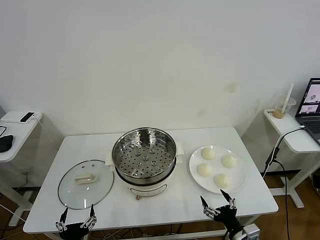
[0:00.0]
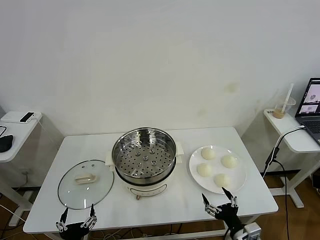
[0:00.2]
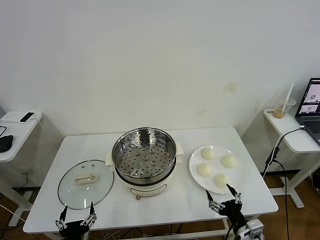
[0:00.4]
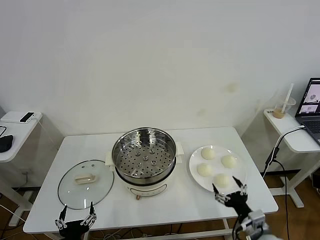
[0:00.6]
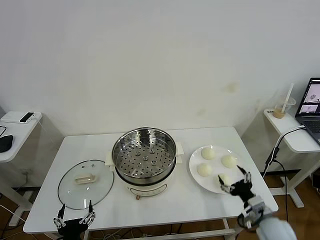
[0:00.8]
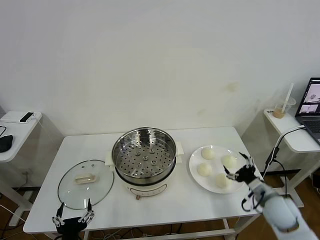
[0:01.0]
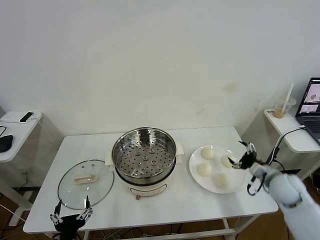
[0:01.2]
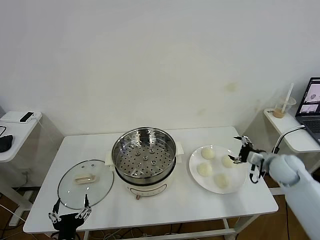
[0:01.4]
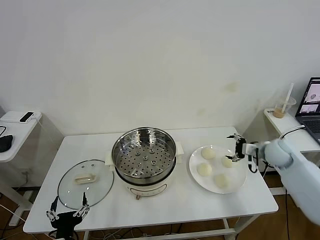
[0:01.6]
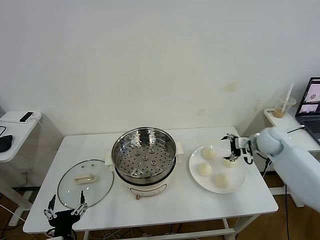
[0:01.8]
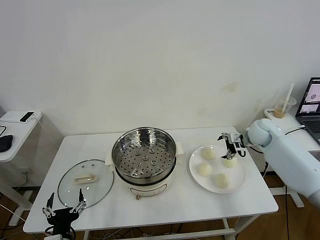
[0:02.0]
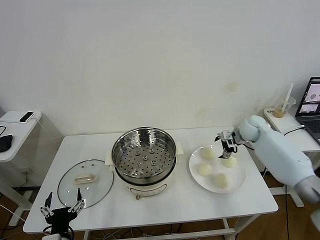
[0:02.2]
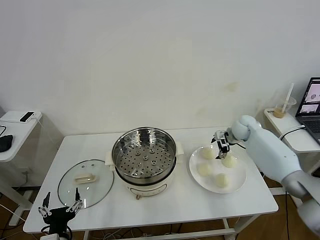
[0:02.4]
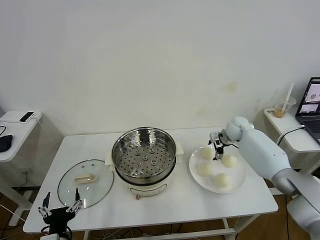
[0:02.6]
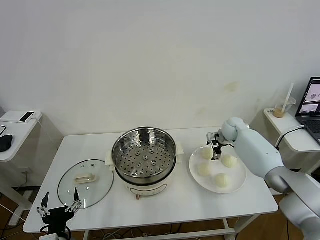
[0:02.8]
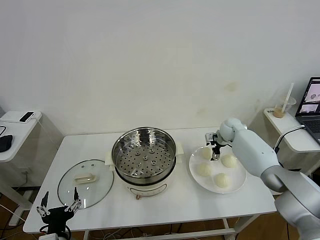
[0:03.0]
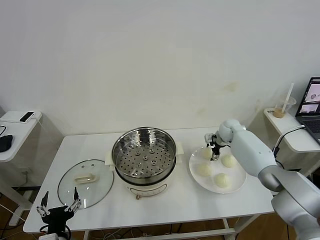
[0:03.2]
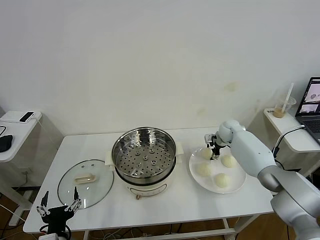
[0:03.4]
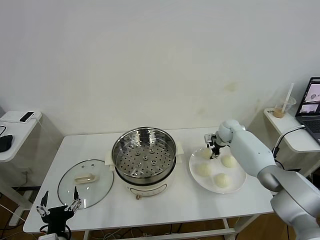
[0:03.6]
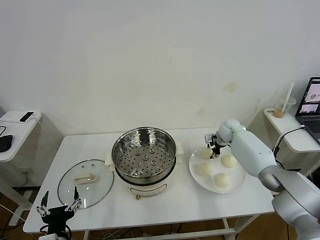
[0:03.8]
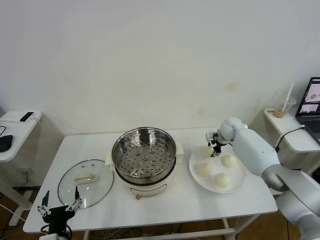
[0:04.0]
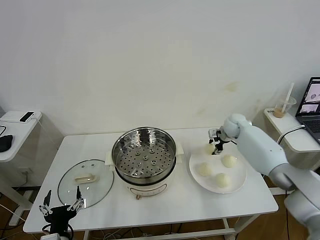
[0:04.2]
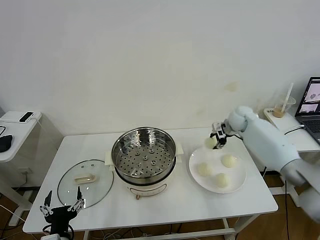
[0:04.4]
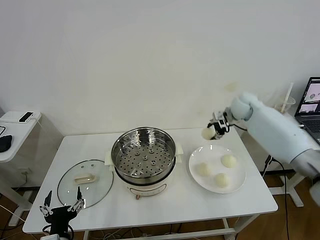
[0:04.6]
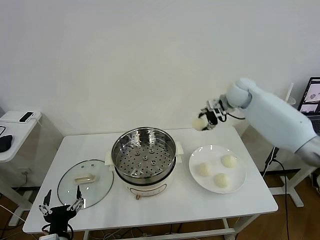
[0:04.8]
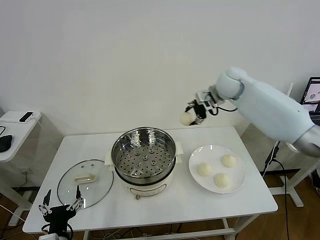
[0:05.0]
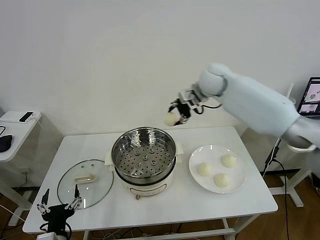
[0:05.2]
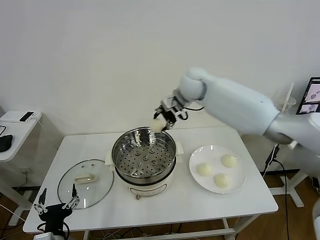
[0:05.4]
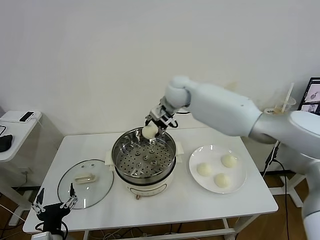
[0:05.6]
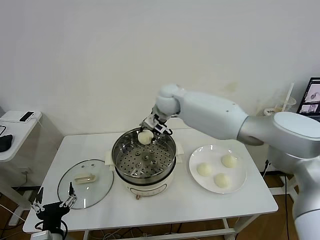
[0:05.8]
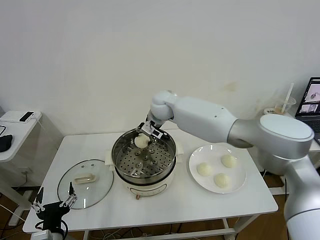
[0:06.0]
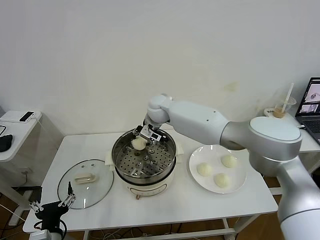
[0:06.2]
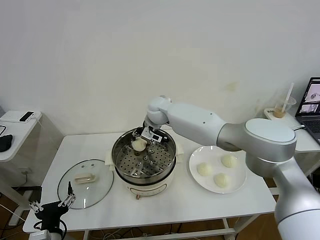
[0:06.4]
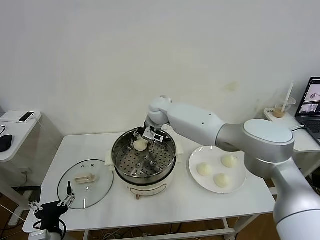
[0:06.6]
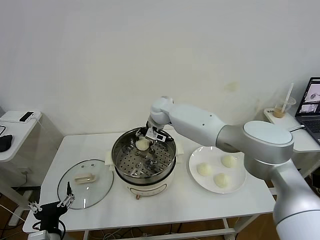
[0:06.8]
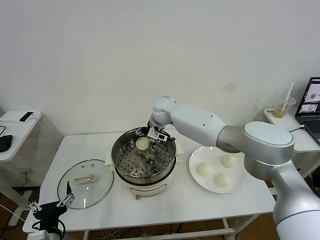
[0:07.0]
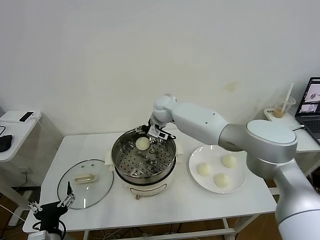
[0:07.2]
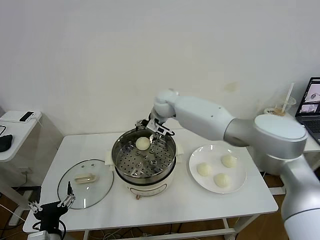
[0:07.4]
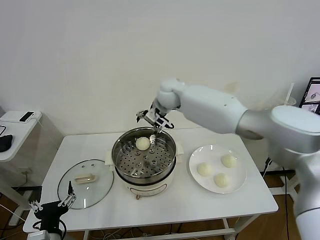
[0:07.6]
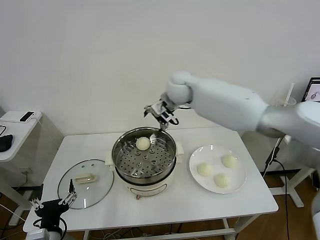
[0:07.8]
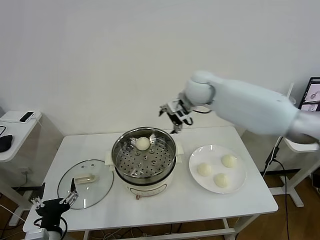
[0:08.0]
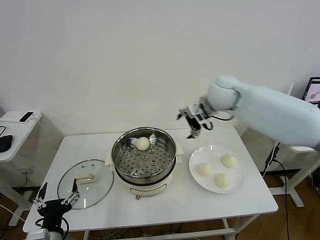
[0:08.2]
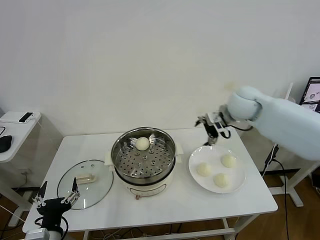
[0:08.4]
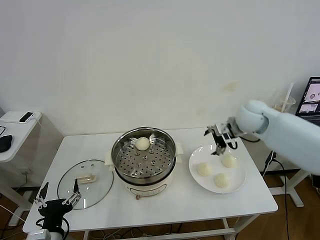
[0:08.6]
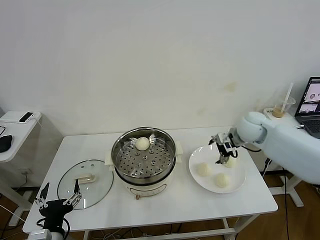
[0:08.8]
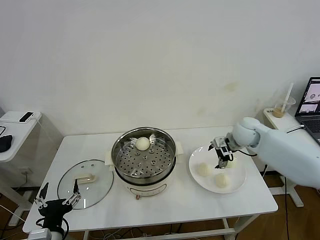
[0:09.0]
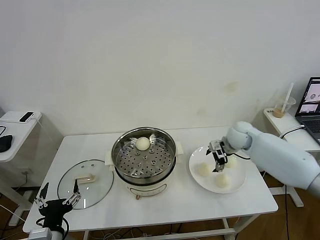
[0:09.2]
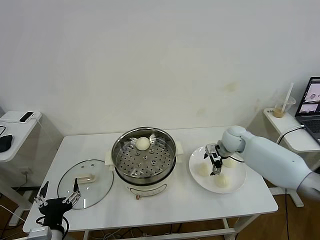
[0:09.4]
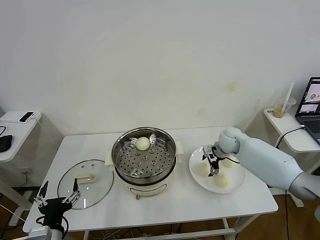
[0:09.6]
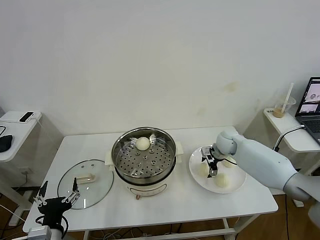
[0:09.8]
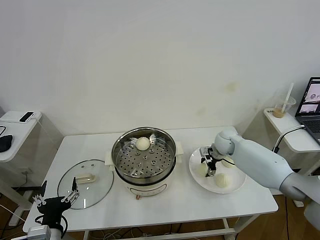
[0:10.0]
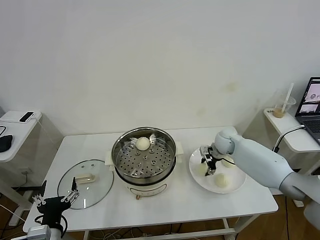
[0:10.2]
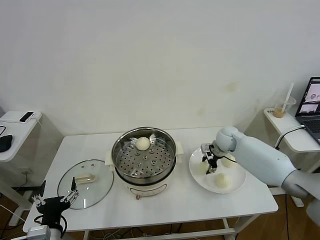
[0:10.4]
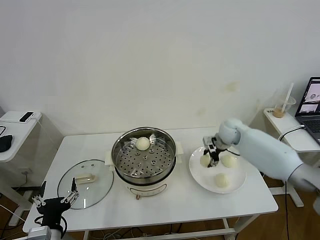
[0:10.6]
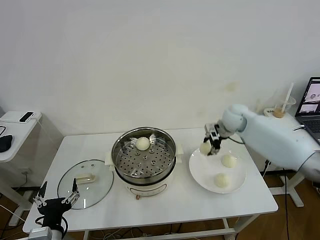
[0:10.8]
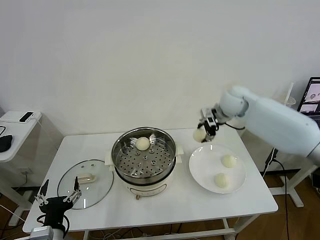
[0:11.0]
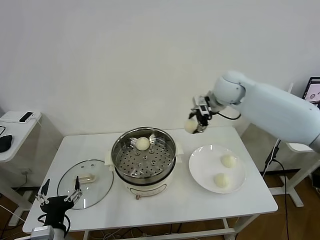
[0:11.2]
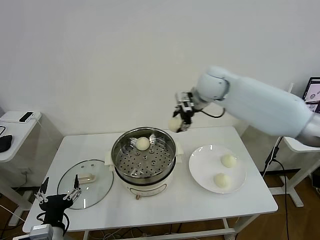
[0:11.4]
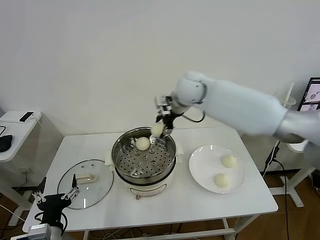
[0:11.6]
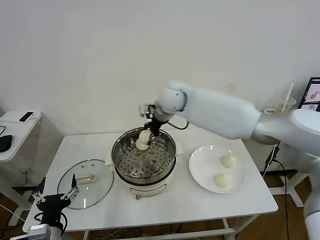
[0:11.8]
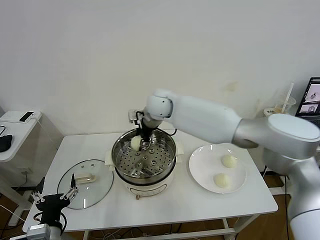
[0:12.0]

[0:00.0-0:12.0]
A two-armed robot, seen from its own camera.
Task of the whole recording: take steamed baozi put them in steamer then cover it.
Step, 0:00.0 to 0:03.8: Grasp the baozi in the plate with right gripper.
Step, 0:04.0 to 0:07.2: Place the baozi on the steamer with right gripper.
Step, 0:07.4 to 0:10.2: Grasp the baozi in the plate with right gripper.
0:01.6 to 0:03.0: The right gripper goes roughly 20 cm forward, to the left and downward.
0:03.0 to 0:04.4: The right gripper is displaced upward by some 10 cm, and closes.
0:04.4 to 0:06.0: The right gripper is displaced to the left by roughly 30 cm.
0:06.0 to 0:07.6: The right gripper heads upward and to the right, covering roughly 10 cm, and opens its fingers.
0:07.6 to 0:09.0: The right gripper travels to the right and downward by about 30 cm.
0:09.0 to 0:10.4: The right gripper shifts by some 5 cm, and closes up.
0:10.4 to 0:12.0: The right gripper is displaced to the left and upward by roughly 30 cm.

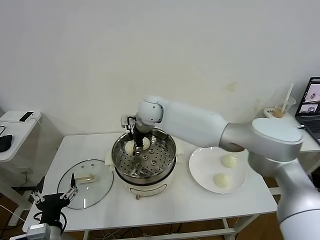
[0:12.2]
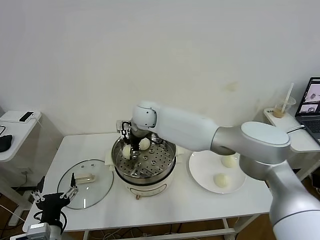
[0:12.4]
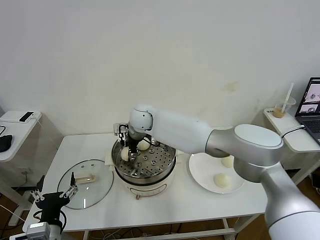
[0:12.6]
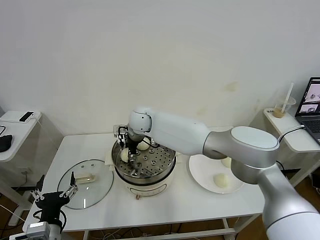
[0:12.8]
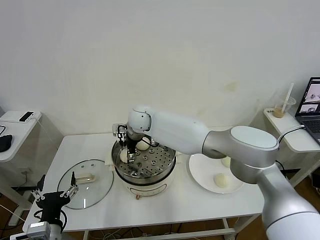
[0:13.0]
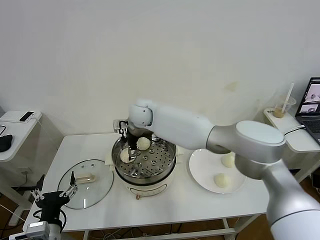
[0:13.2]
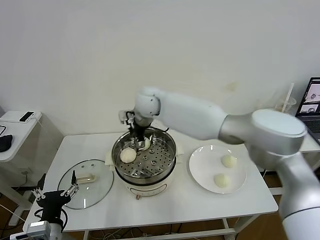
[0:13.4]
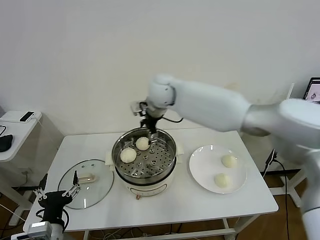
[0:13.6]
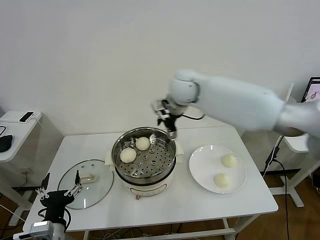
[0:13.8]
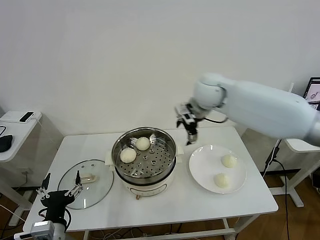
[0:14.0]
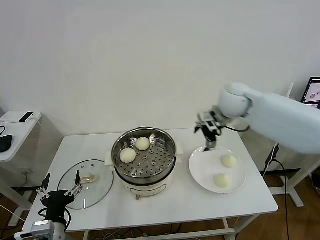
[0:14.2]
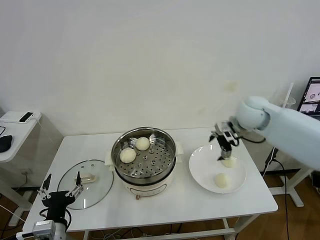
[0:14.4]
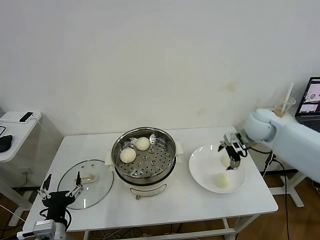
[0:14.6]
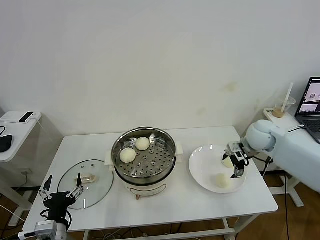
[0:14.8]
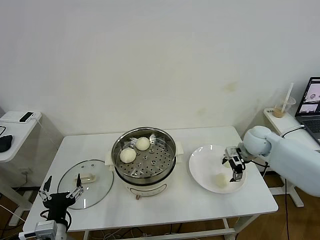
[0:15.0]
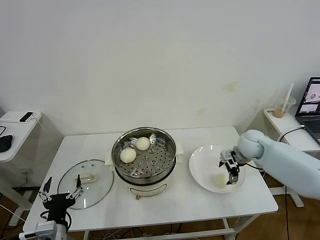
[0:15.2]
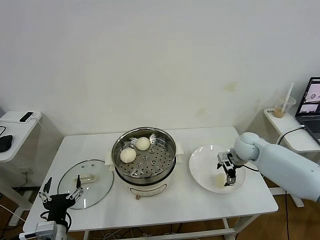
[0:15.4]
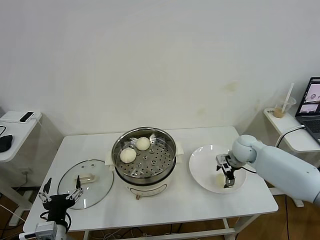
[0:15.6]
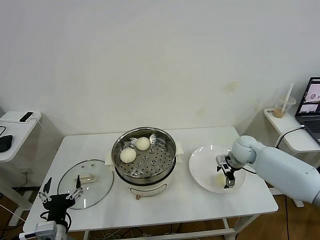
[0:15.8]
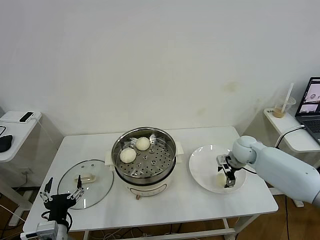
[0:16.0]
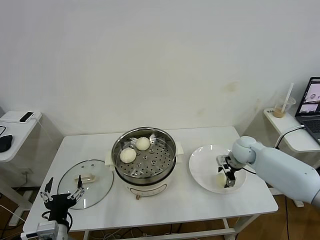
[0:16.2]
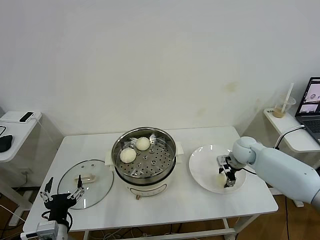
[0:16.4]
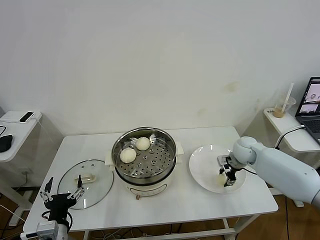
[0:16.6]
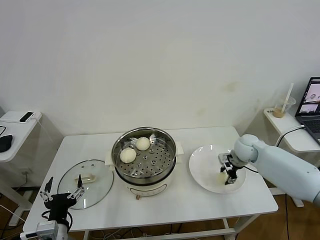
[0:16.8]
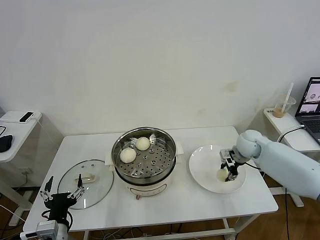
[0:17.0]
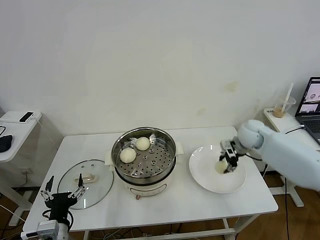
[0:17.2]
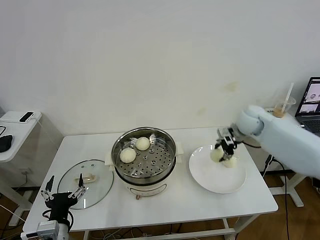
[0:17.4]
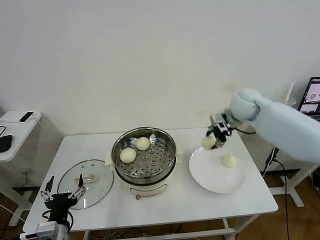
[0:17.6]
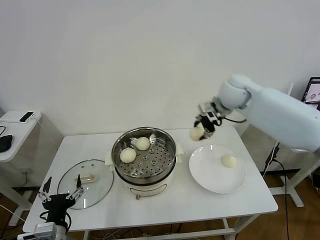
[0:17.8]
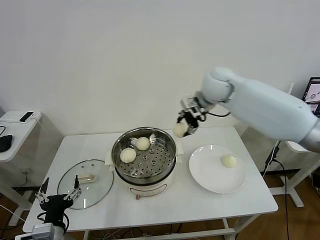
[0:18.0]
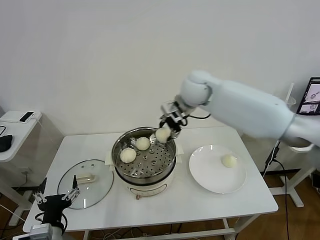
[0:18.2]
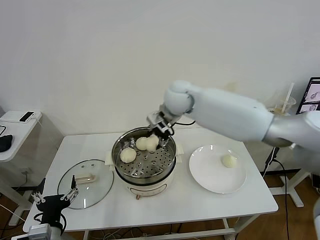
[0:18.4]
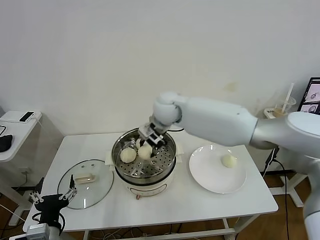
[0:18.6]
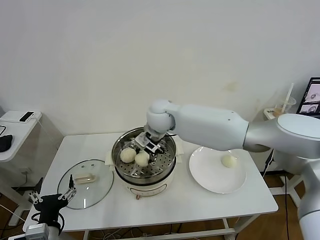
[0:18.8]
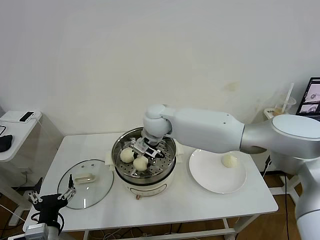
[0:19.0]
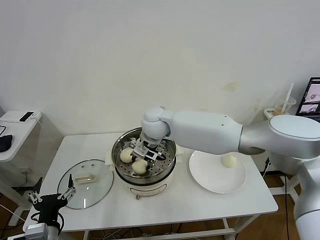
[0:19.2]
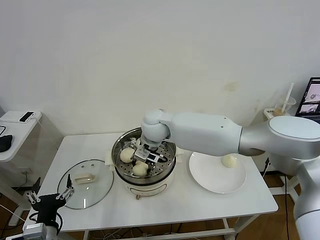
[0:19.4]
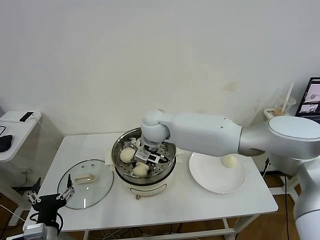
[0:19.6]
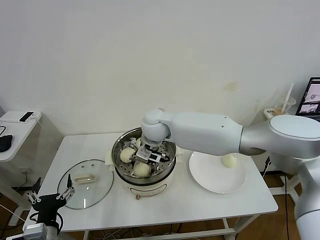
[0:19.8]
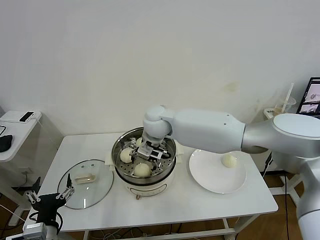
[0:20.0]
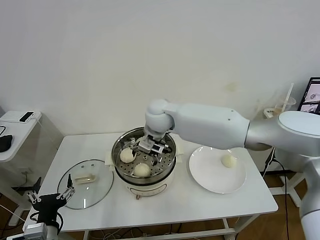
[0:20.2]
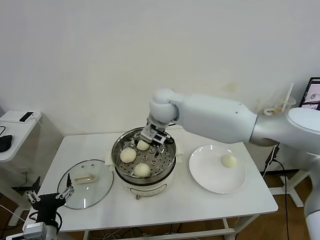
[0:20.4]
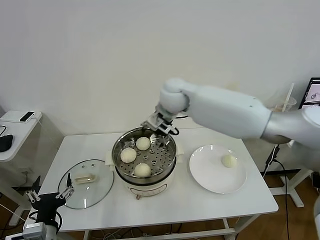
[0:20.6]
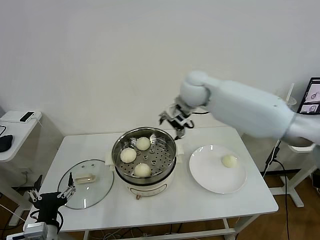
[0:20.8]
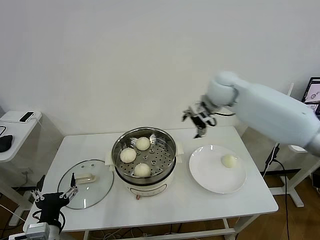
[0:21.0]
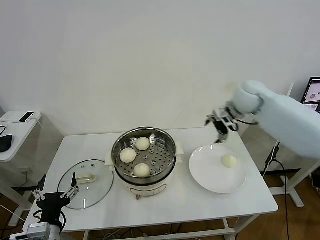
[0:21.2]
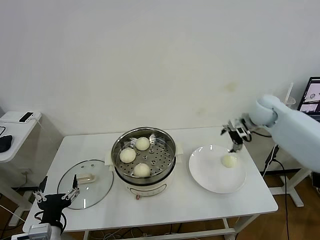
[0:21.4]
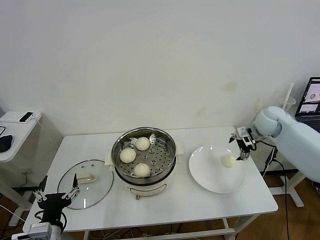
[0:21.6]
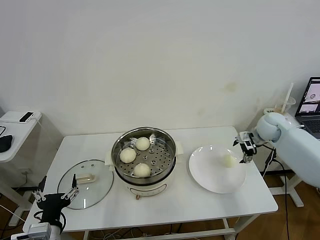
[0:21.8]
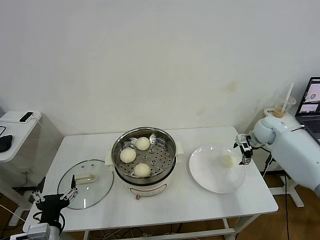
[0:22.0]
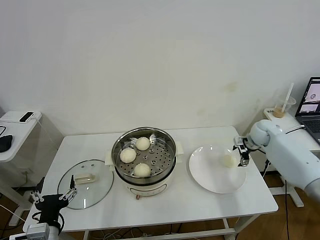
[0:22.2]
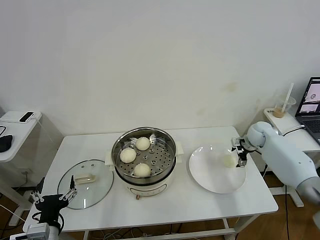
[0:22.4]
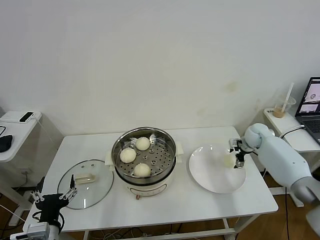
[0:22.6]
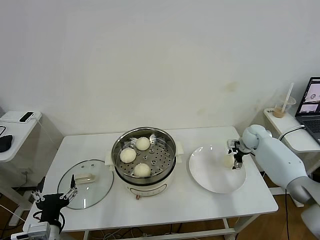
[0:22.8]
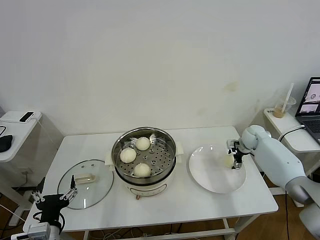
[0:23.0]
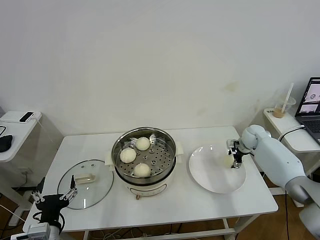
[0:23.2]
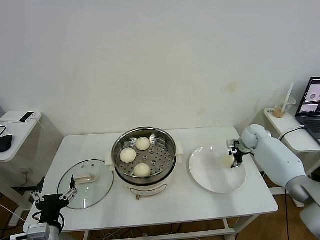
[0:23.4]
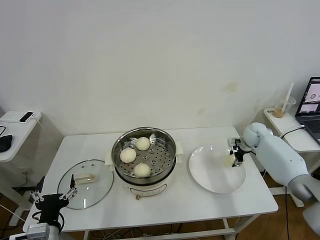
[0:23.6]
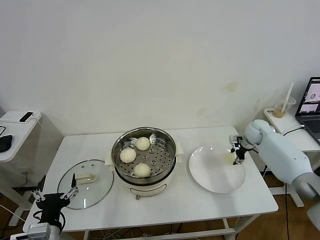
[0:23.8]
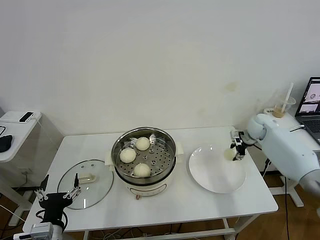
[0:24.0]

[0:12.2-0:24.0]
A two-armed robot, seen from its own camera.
Task of the whole recording: take steamed baozi put them in steamer then cover it.
Step, 0:13.4 to 0:16.6: Grasp the baozi in the plate with right gripper.
Step, 0:16.8 to 0:20.0: Place the baozi on the steamer with right gripper.
Step, 0:20.4 to 0:23.4: Grasp the baozi in the plate with right gripper.
0:12.2 to 0:13.6: The right gripper shifts some 10 cm upward and to the right, and opens.
0:13.6 to 0:15.2: The right gripper moves to the right and downward, approximately 35 cm.
0:15.2 to 0:16.6: The right gripper closes.
0:16.6 to 0:18.2: The right gripper is displaced to the left and upward by approximately 35 cm.
0:18.2 to 0:19.6: The right gripper moves to the left and downward, about 15 cm.
0:19.6 to 0:21.0: The right gripper is displaced to the right by approximately 25 cm, and opens up.
0:21.0 to 0:22.6: The right gripper shifts about 30 cm downward and to the right.
0:22.6 to 0:24.0: The right gripper travels upward by approximately 5 cm, and closes.
